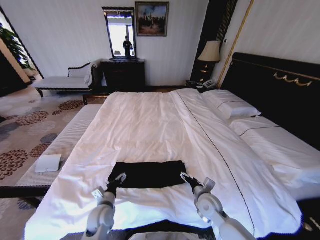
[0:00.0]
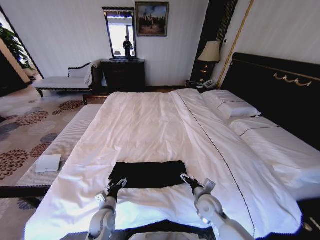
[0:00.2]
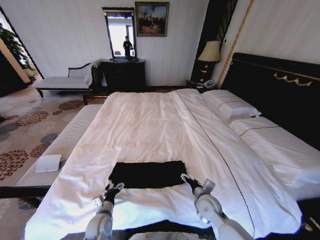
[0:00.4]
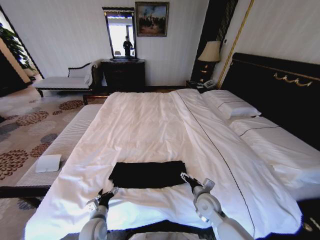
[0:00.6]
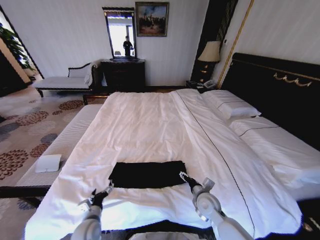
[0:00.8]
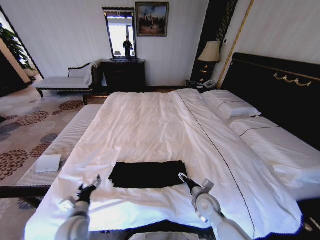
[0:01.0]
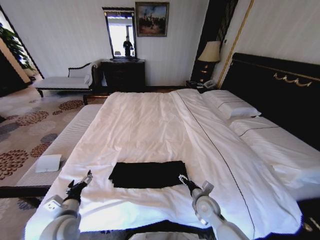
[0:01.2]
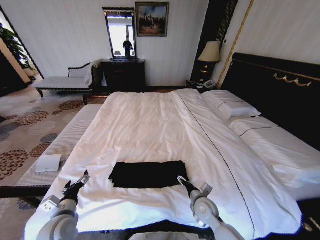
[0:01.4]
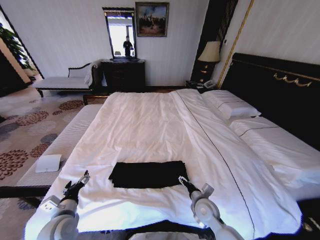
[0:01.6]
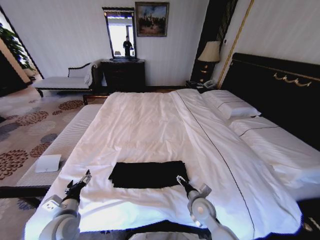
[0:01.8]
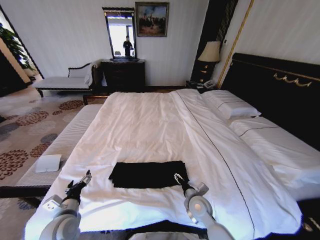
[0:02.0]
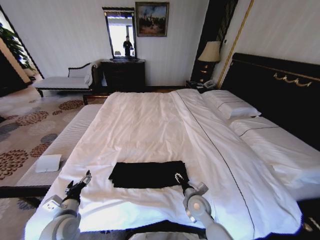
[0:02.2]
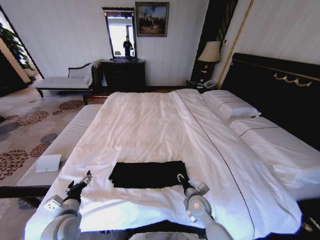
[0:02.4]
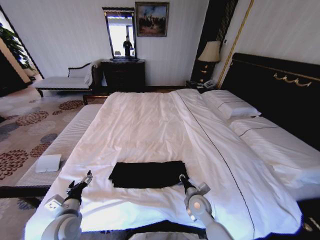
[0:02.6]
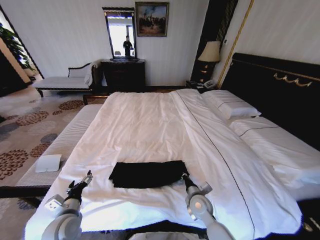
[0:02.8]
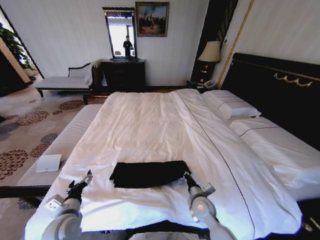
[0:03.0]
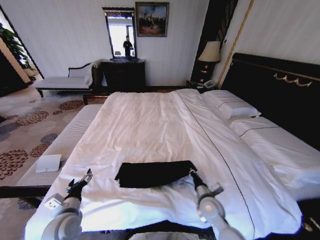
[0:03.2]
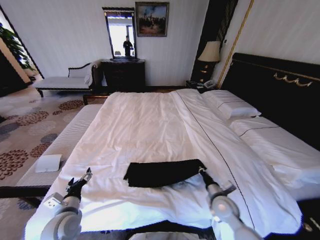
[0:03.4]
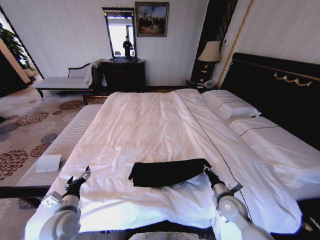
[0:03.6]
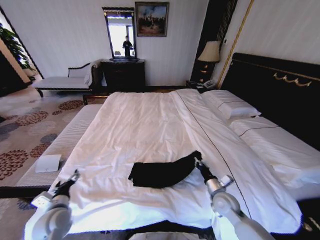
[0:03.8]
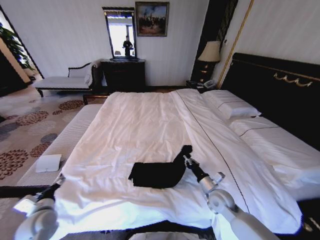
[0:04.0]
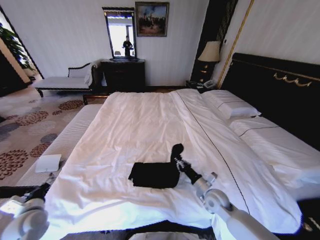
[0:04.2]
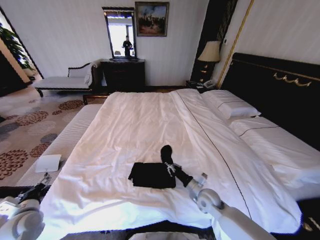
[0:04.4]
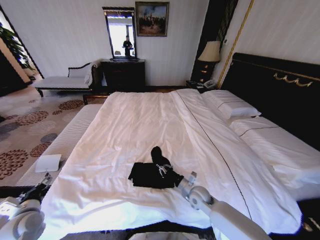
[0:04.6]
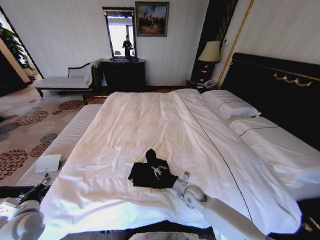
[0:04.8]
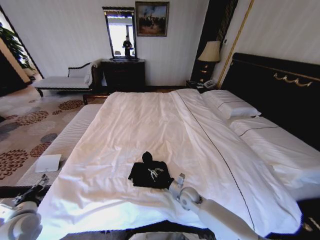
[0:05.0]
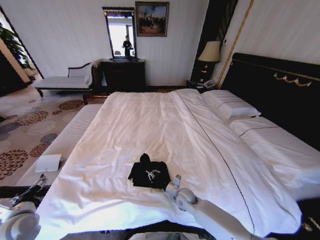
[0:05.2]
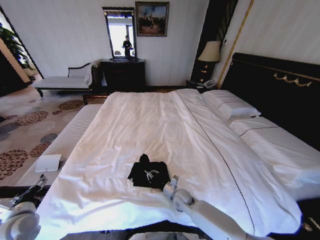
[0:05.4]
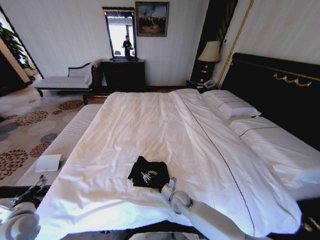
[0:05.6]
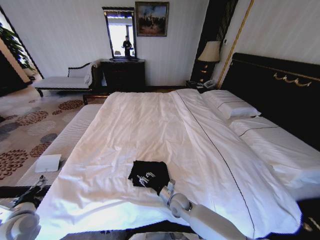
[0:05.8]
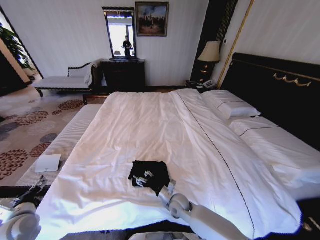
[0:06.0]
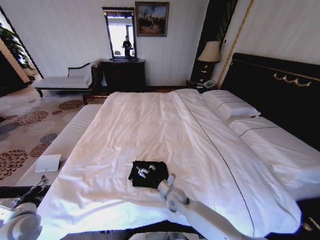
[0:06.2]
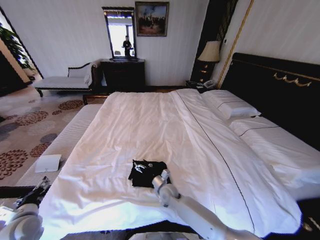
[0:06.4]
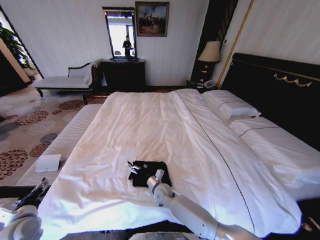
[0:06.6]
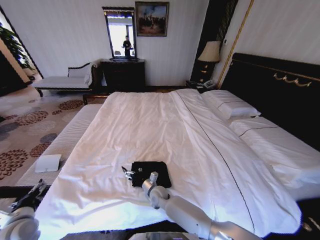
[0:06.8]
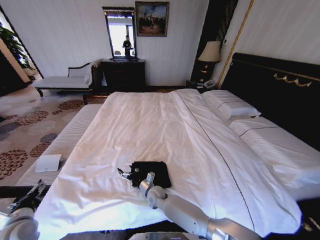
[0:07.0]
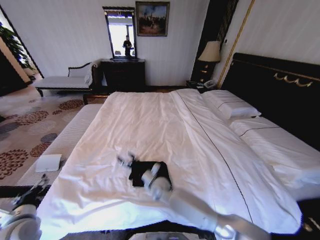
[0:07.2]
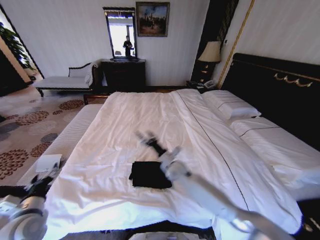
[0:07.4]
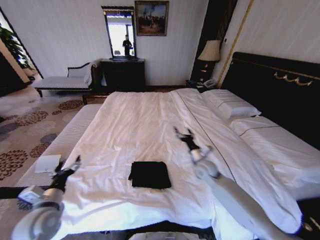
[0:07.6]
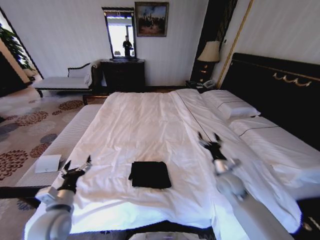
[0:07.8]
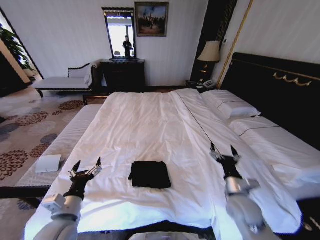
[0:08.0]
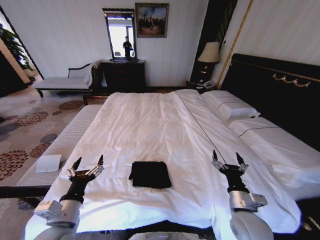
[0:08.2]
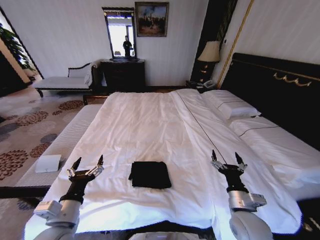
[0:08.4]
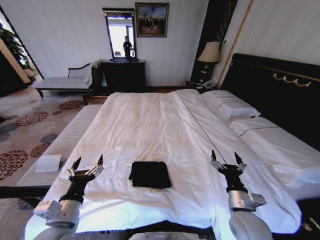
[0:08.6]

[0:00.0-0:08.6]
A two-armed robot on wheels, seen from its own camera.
Task of the whole recording: Fold the clothes on the bed.
0:00.0 to 0:01.4: The left gripper goes some 15 cm to the left and upward.
0:01.4 to 0:02.8: The right gripper closes.
0:02.8 to 0:04.4: The left gripper is displaced to the left by some 15 cm.
0:04.4 to 0:05.8: The right gripper goes some 15 cm to the left and downward, and opens its fingers.
0:05.8 to 0:07.2: The right gripper is displaced to the left and forward by roughly 10 cm, and opens its fingers.
0:07.2 to 0:08.6: The left gripper moves to the right, some 15 cm, while the right gripper travels to the right, backward and upward by some 35 cm.
